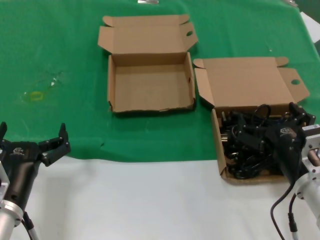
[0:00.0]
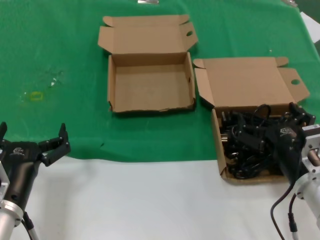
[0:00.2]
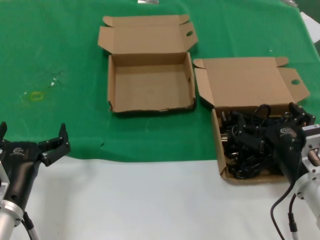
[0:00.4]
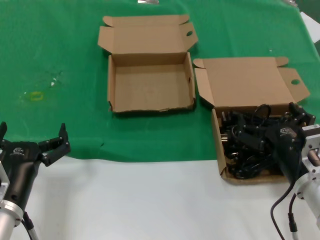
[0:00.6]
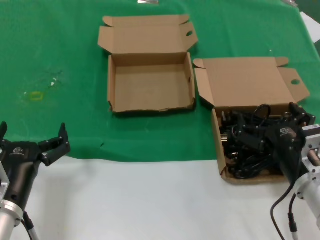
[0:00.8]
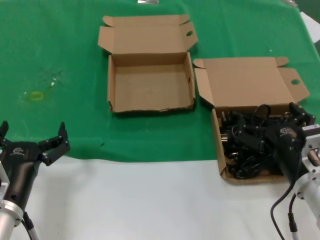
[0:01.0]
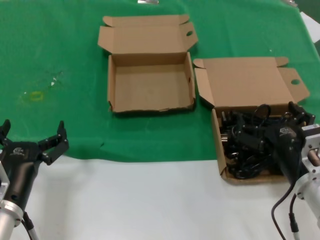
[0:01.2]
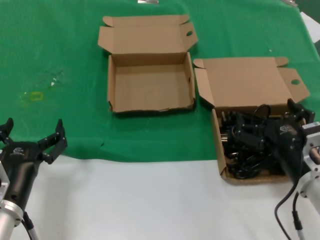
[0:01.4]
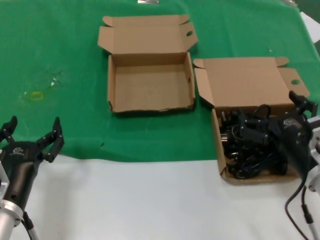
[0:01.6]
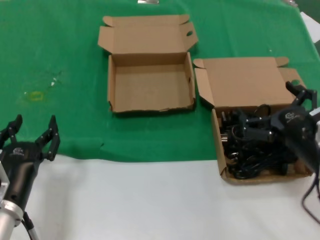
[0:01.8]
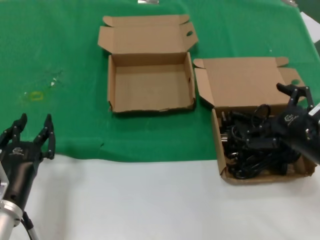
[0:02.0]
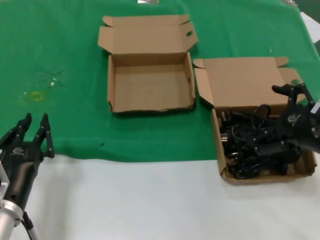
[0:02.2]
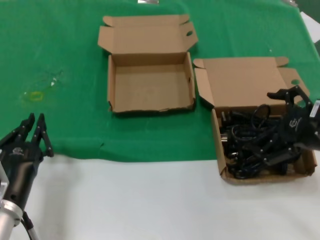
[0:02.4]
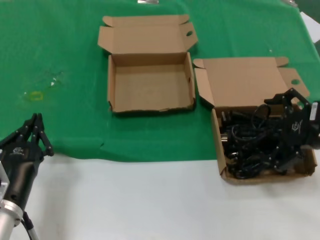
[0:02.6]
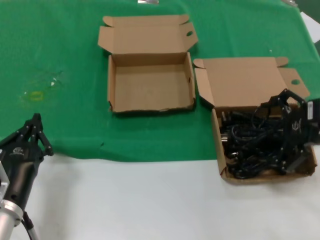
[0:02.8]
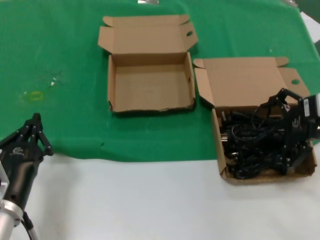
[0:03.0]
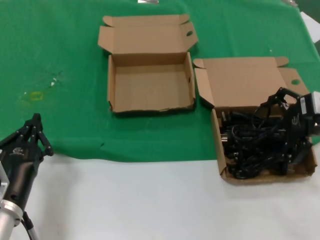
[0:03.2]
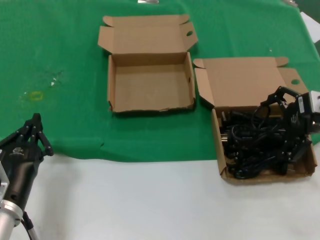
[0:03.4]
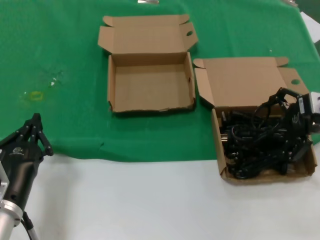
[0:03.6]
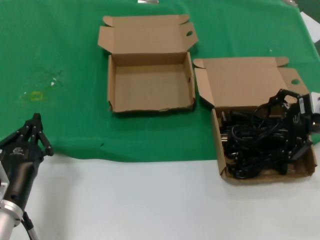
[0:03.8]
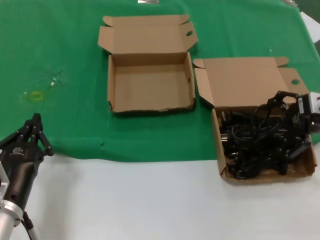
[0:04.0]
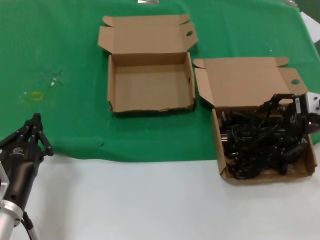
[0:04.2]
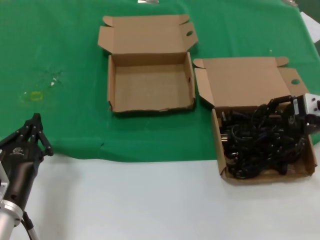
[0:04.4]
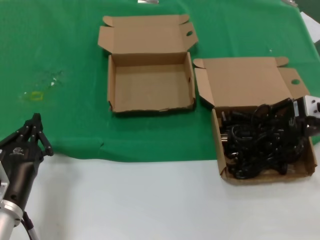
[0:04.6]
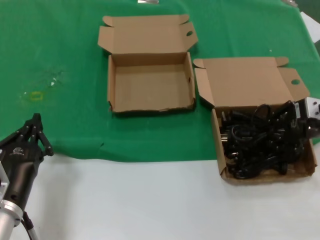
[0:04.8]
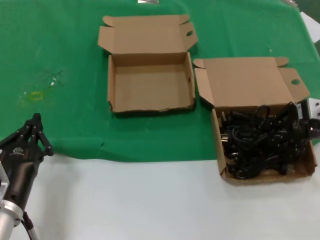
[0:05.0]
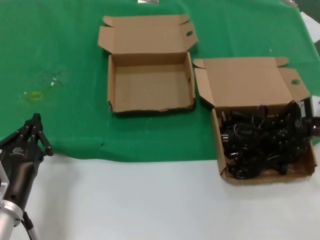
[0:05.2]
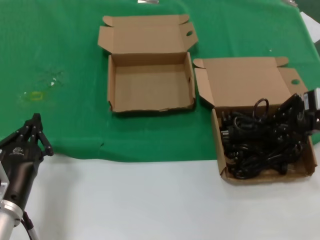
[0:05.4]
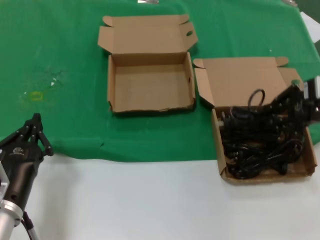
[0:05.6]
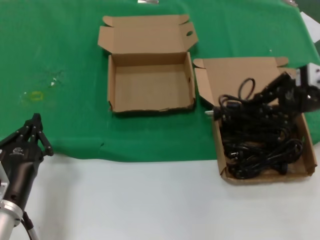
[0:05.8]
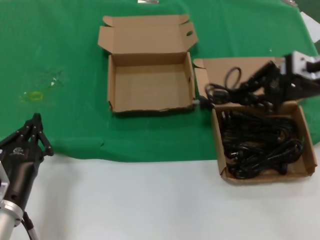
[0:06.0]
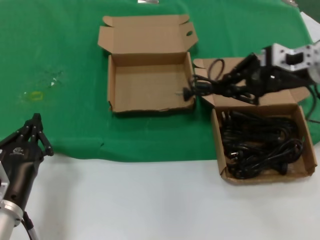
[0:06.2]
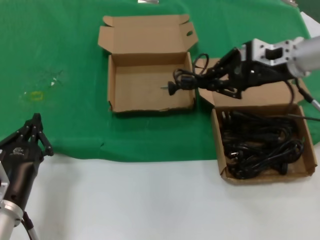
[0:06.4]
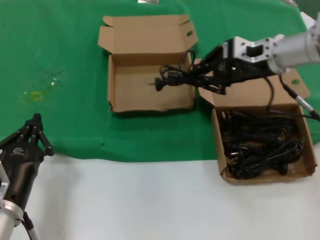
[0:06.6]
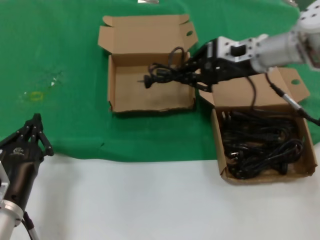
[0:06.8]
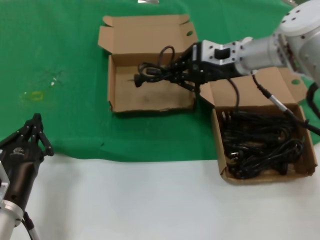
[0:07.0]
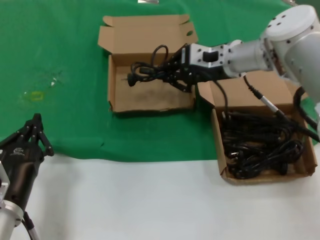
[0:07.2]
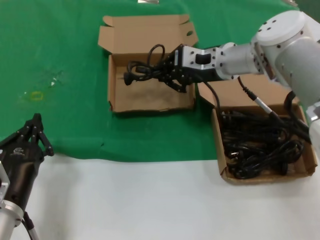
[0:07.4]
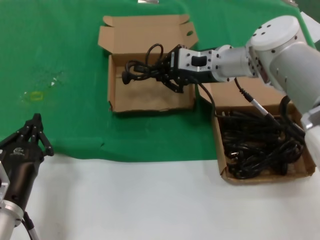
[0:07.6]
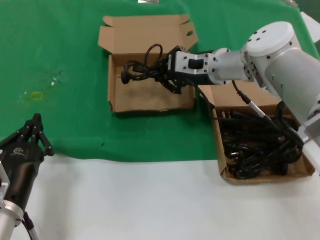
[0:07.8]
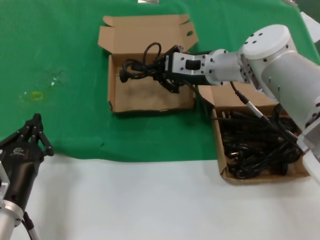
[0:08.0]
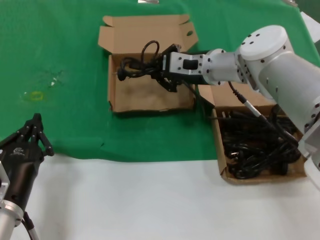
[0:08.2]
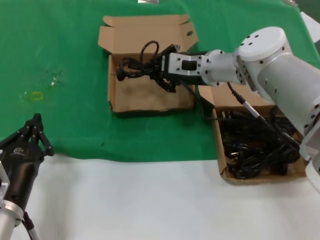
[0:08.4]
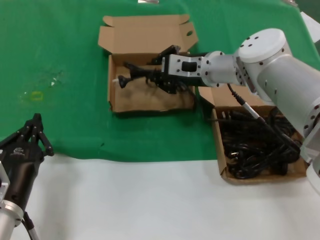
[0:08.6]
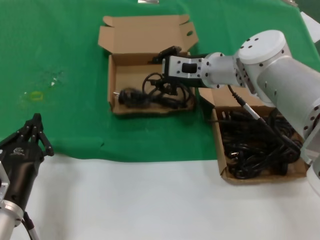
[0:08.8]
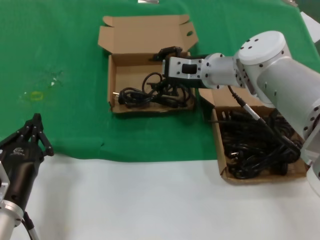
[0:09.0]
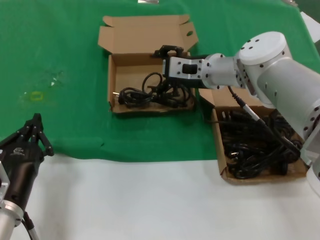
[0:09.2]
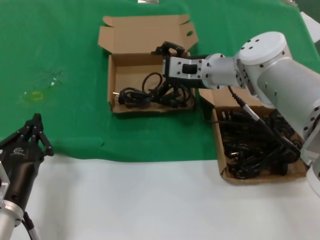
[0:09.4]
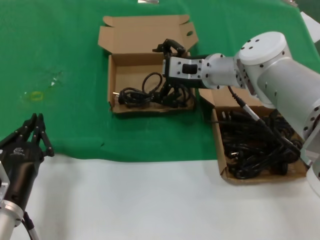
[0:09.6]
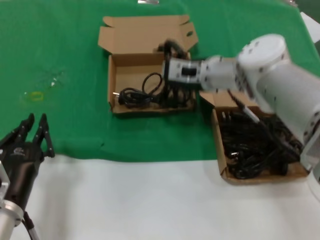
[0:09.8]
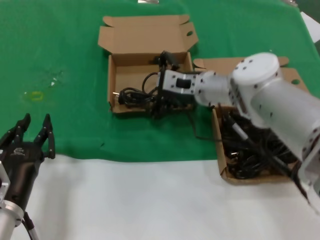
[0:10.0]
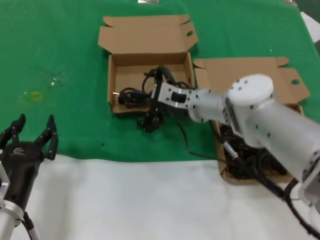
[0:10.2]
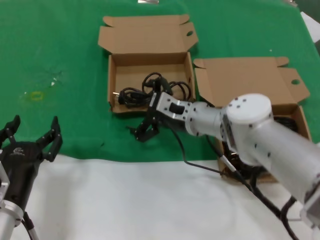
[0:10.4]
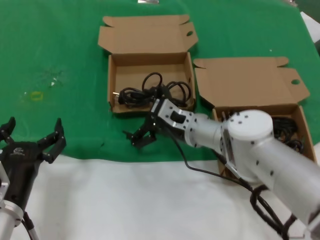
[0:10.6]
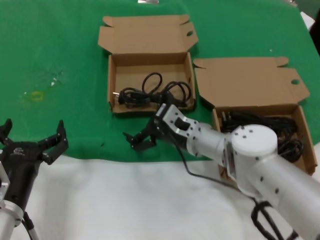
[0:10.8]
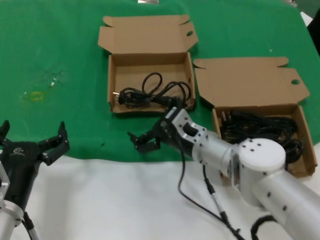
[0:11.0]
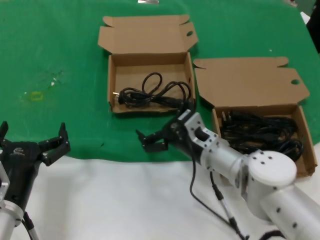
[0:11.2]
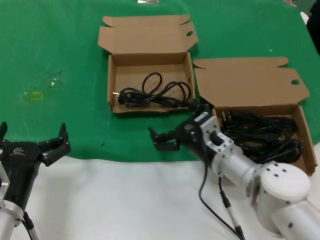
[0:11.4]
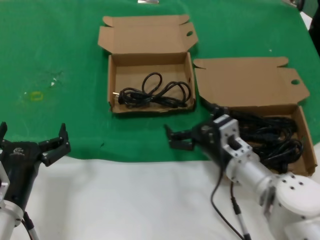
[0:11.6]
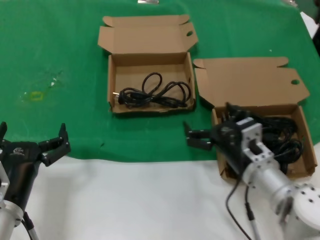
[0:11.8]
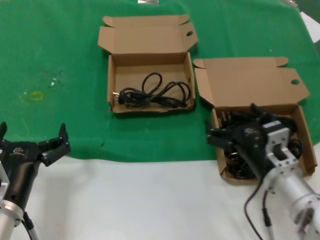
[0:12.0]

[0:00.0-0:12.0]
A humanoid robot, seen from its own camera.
Task of the whole recording: take the parts from the box containing them and put them into an empty box.
Step, 0:00.0 to 0:05.0: Grasp the data cable.
Step, 0:05.4 to 0:08.6: Place the data cable in the another box.
0:00.0 to 0:01.6: There are only small adjustments of the hands.
0:01.6 to 0:03.0: The right hand moves upward, forward and to the right, some 20 cm.
0:03.0 to 0:04.4: The right hand shifts approximately 5 cm forward.
0:04.4 to 0:06.0: The right hand heads upward, covering roughly 5 cm.
0:06.0 to 0:07.6: The right hand moves to the left and forward, approximately 20 cm.
0:07.6 to 0:09.0: The hands make only small movements.
0:09.0 to 0:10.4: The right hand travels downward by about 10 cm.
0:10.4 to 0:12.0: The right hand shifts roughly 20 cm backward and to the right.

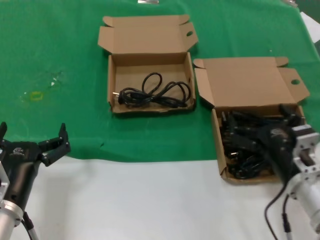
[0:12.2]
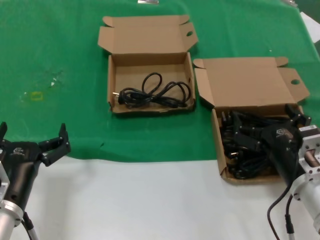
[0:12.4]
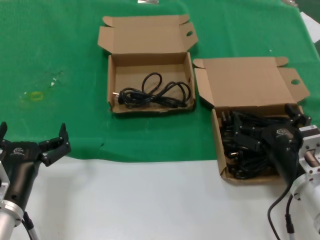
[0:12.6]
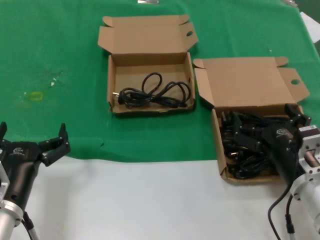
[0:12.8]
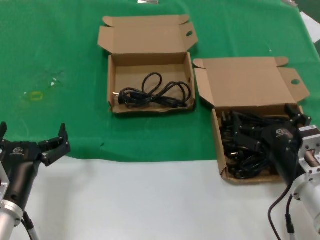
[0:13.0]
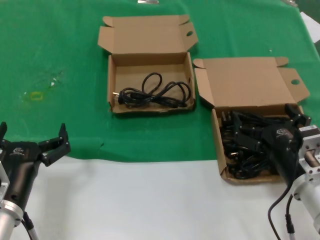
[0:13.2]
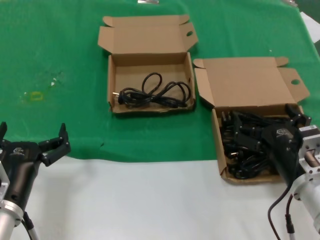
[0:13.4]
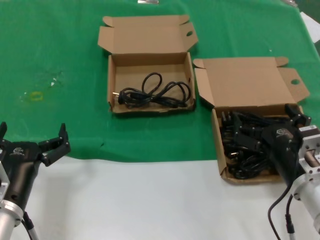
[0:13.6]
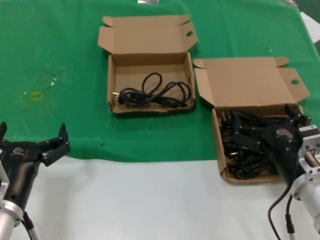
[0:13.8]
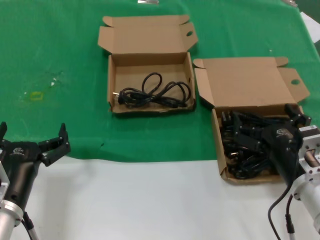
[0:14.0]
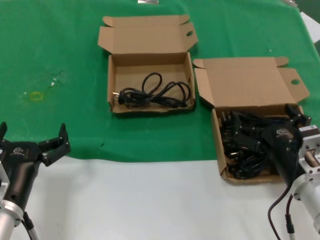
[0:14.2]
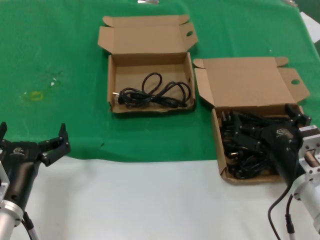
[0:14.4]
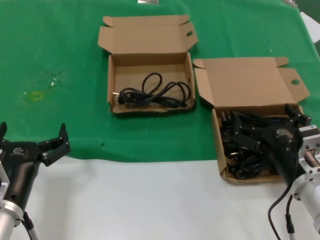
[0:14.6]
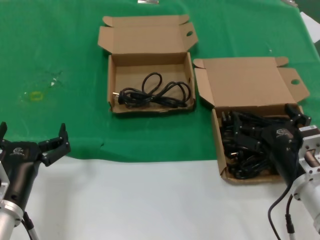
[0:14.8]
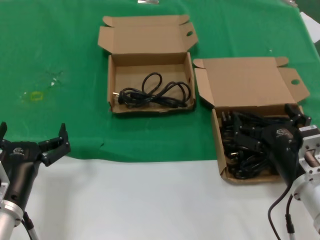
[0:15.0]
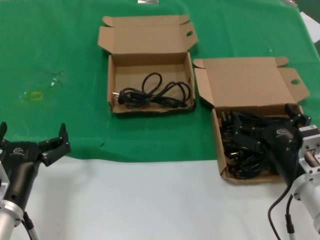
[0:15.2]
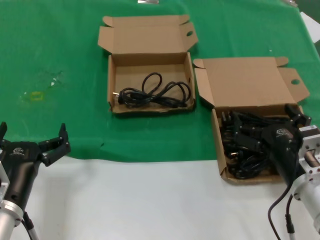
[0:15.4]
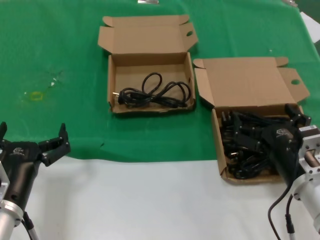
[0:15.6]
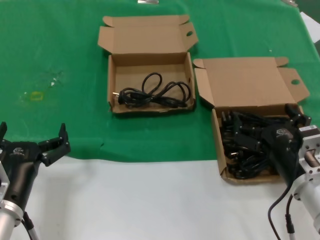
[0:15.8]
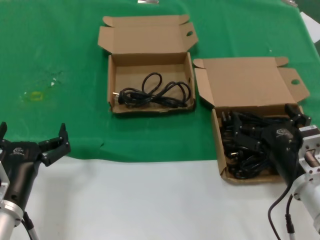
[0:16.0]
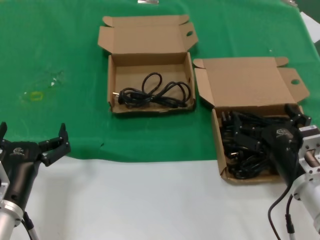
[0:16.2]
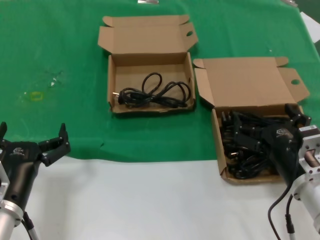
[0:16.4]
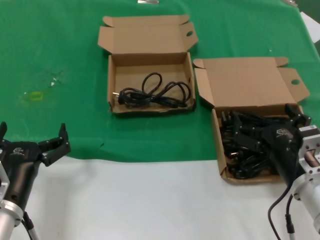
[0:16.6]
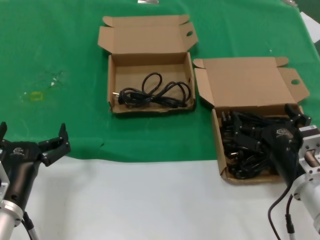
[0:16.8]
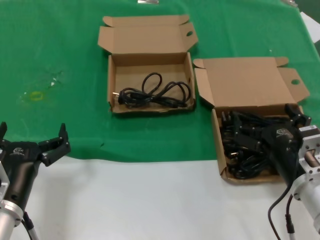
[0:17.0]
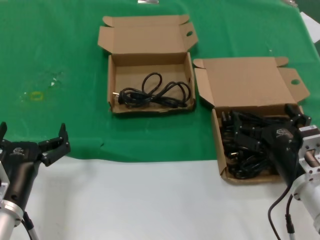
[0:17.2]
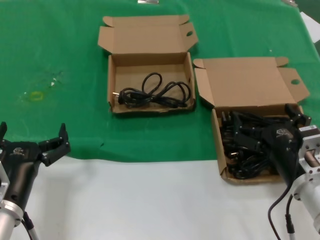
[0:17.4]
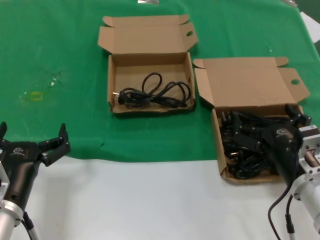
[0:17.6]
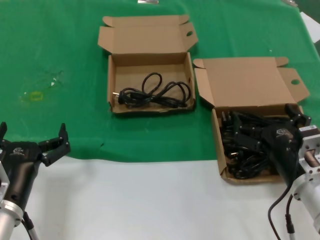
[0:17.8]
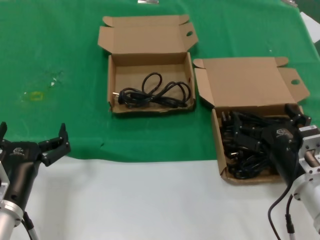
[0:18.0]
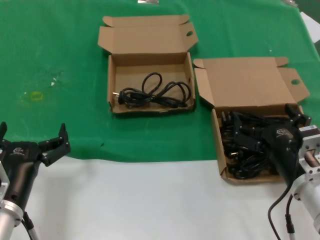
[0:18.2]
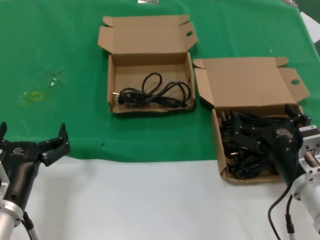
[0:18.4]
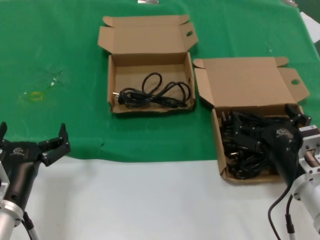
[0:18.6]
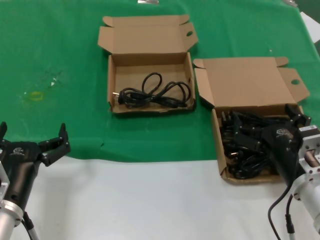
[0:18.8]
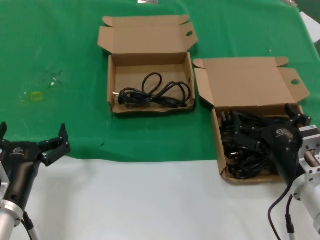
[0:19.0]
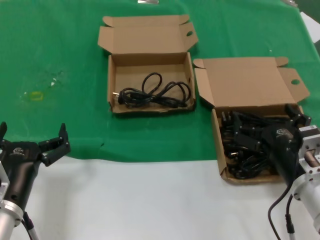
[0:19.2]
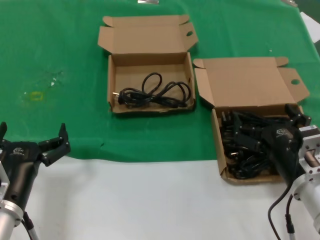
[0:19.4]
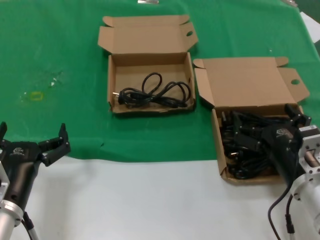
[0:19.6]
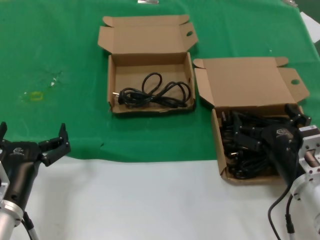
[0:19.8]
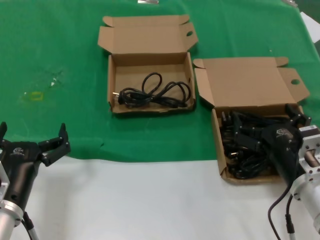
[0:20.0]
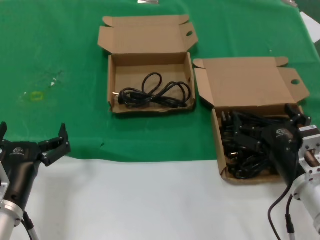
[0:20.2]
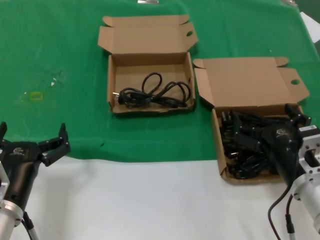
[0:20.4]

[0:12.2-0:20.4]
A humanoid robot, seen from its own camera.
Task of the whole recording: take the parts from the box containing them and put them into an empty box.
0:12.2 to 0:13.8: The hands make only small movements.
0:13.8 to 0:20.4: Both hands stay about where they are.

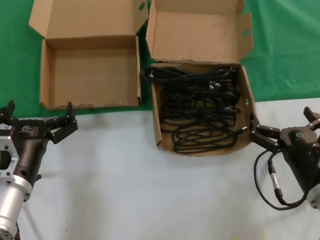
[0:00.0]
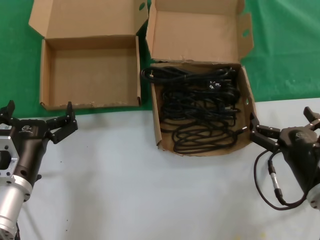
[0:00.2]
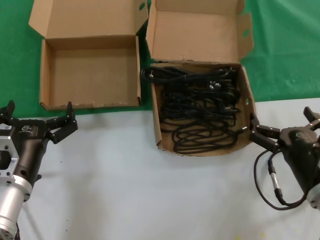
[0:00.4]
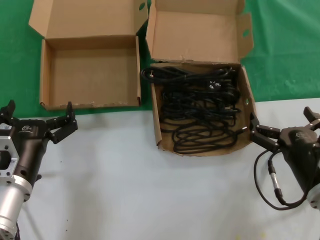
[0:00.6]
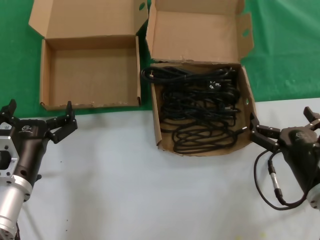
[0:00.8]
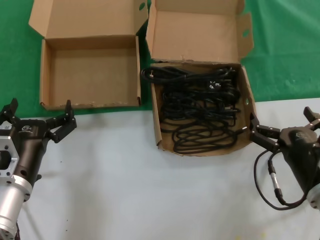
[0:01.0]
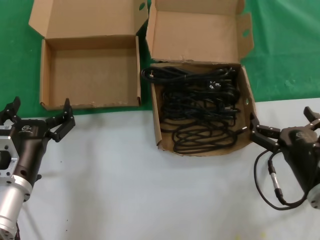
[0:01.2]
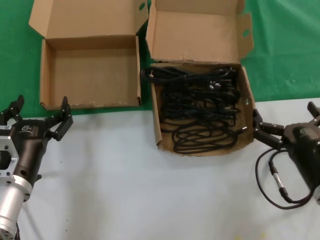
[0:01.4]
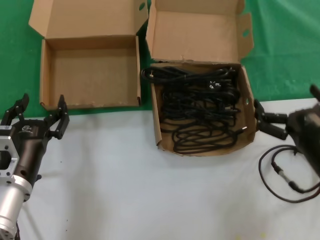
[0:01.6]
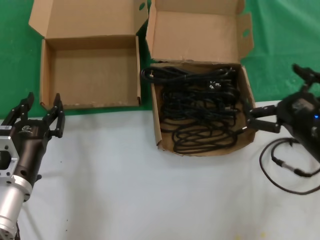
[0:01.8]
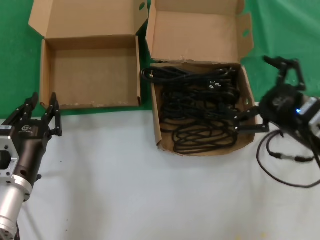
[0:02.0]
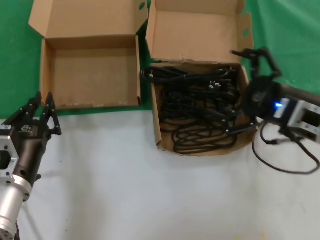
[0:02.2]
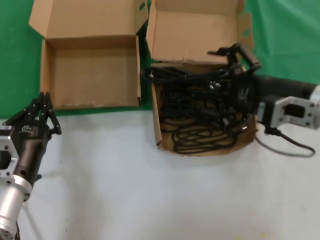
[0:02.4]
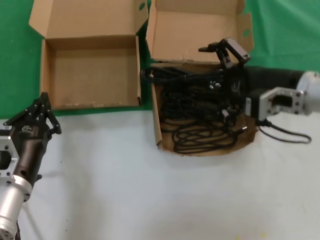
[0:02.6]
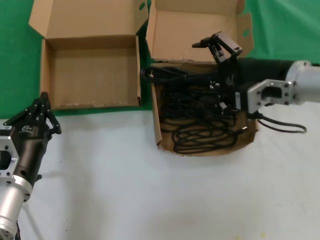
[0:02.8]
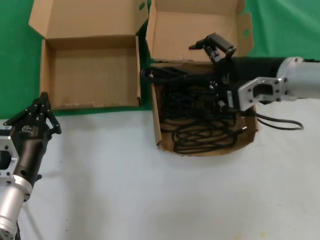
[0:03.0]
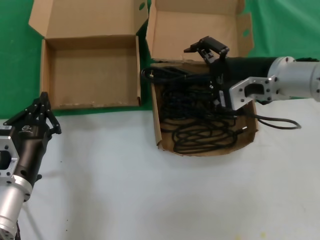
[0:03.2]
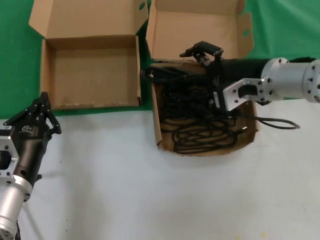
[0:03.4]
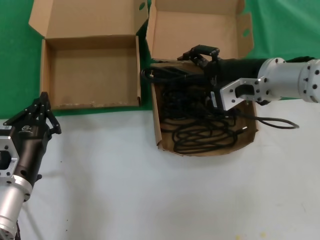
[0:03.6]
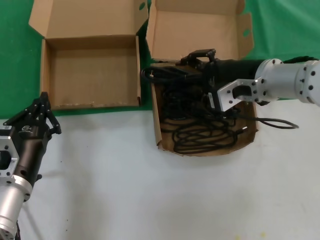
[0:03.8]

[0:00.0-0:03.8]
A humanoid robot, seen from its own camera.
Task of the whole recording: take the parts from the box containing them and put them into an empty box.
0:00.0 to 0:01.2: Both hands stay put.
0:01.2 to 0:02.6: The right hand is displaced upward and forward by roughly 20 cm.
0:02.6 to 0:03.8: The right hand heads to the left, covering some 5 cm.
